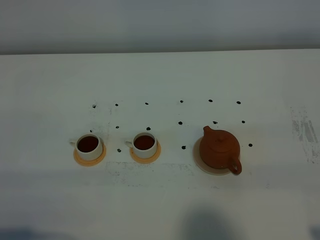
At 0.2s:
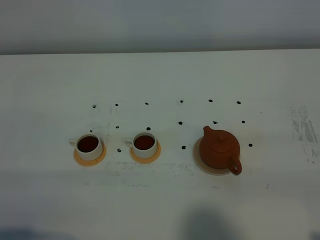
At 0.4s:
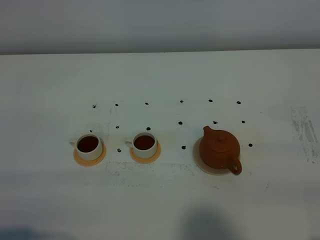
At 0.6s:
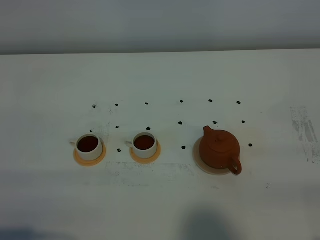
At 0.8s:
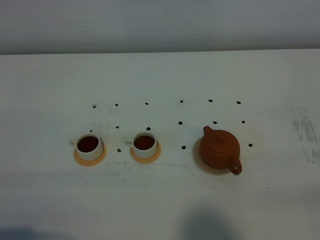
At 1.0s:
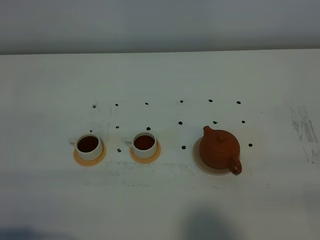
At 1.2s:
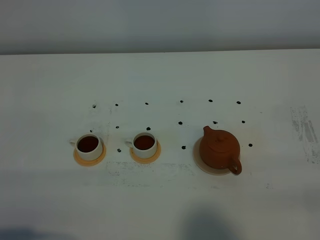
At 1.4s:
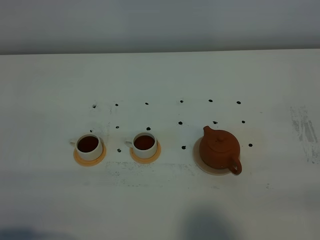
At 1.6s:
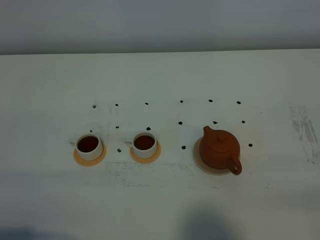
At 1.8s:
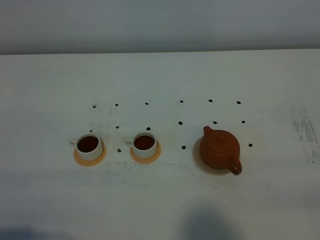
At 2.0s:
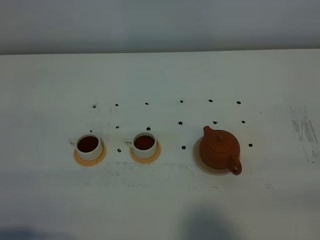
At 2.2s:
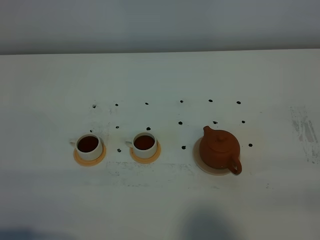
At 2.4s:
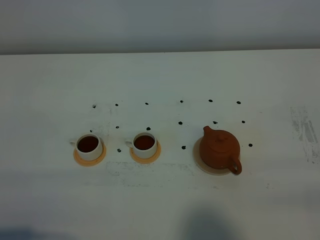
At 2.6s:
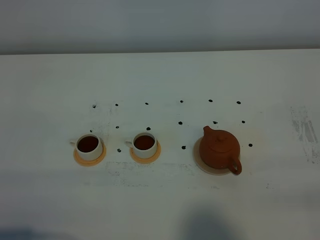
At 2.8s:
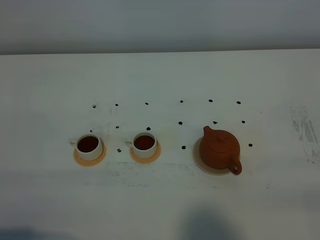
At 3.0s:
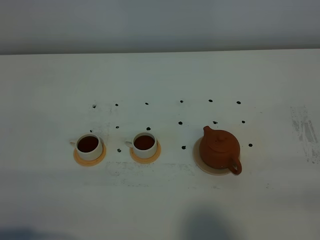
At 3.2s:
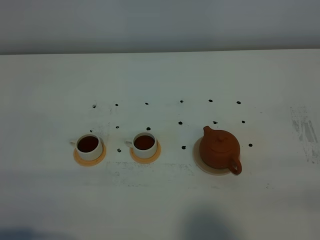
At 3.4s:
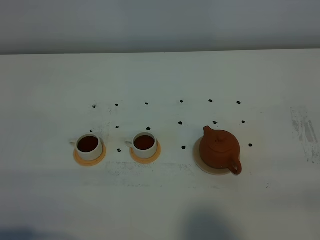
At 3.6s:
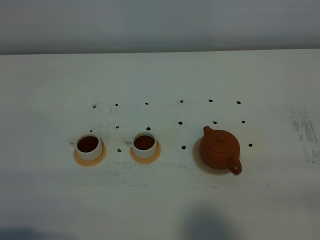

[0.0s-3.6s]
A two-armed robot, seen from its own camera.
Task of the whole recording: grasp the brown teapot and pour the tea into the two white teacups one by one, put the brown teapot back in its original place.
1.8s to 3.6s: The two grippers keep their place.

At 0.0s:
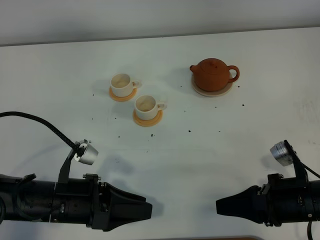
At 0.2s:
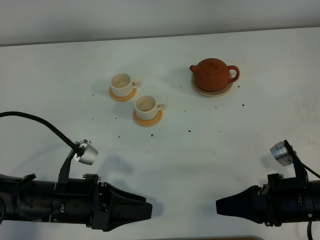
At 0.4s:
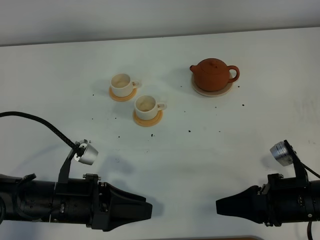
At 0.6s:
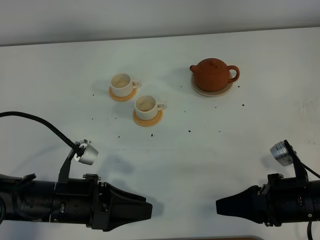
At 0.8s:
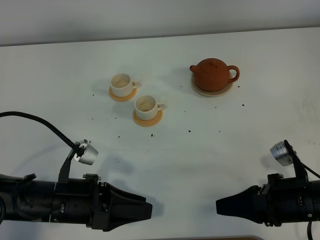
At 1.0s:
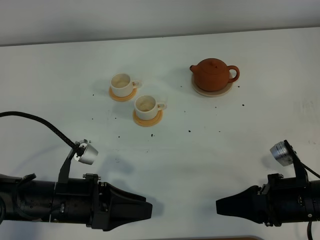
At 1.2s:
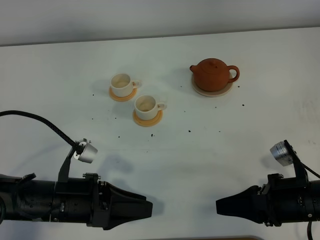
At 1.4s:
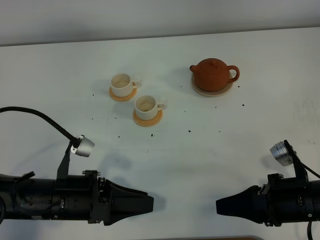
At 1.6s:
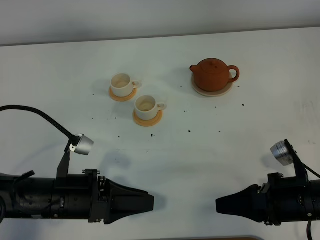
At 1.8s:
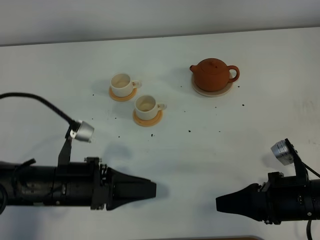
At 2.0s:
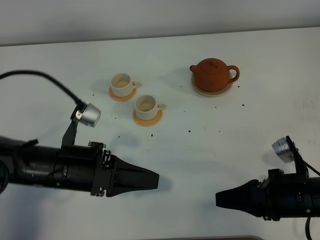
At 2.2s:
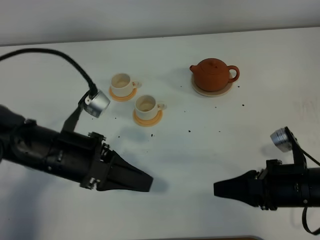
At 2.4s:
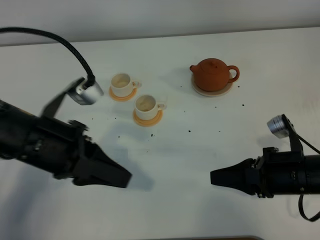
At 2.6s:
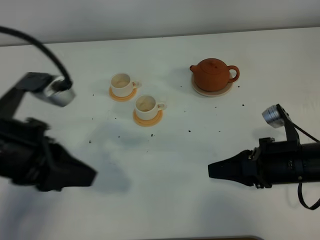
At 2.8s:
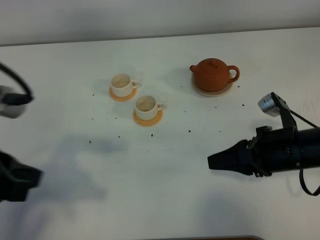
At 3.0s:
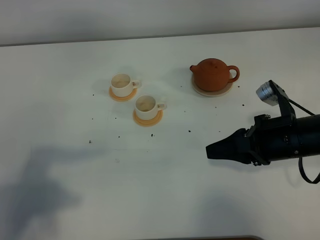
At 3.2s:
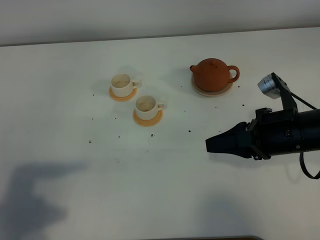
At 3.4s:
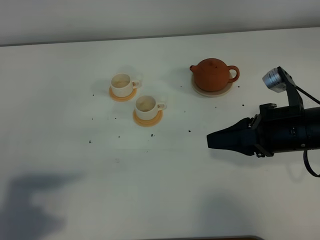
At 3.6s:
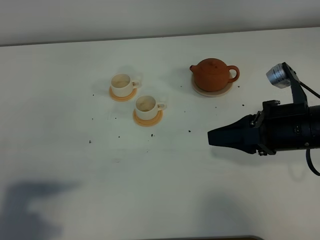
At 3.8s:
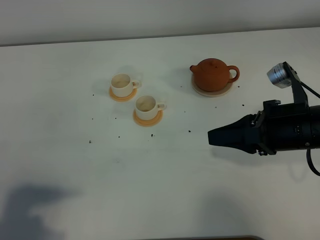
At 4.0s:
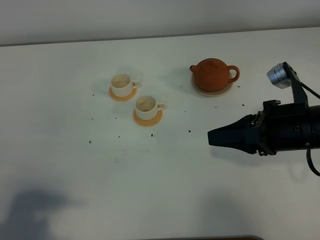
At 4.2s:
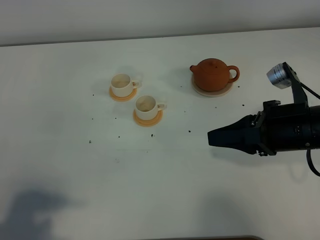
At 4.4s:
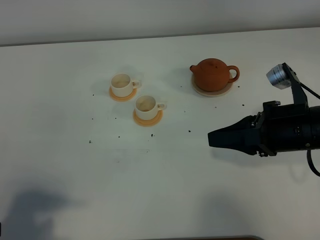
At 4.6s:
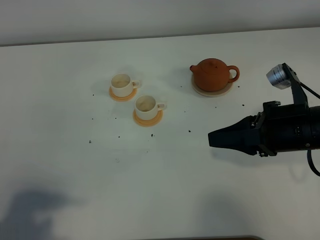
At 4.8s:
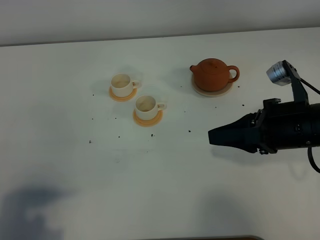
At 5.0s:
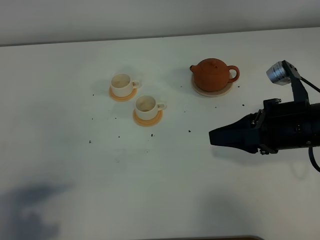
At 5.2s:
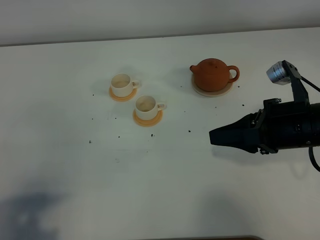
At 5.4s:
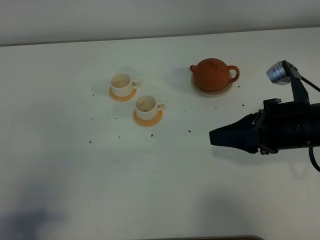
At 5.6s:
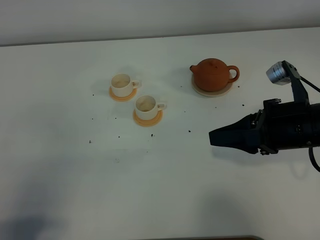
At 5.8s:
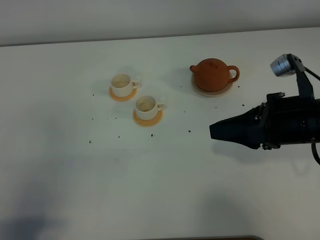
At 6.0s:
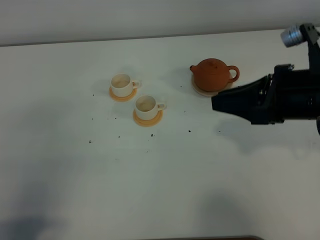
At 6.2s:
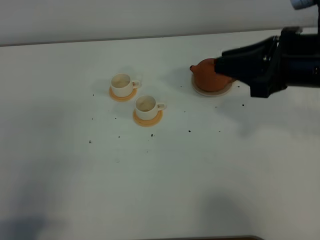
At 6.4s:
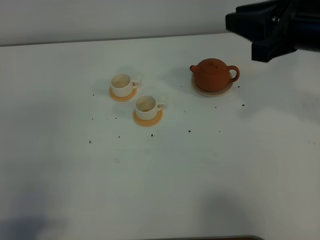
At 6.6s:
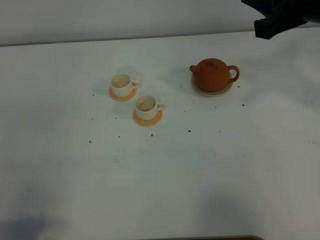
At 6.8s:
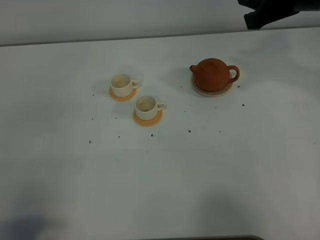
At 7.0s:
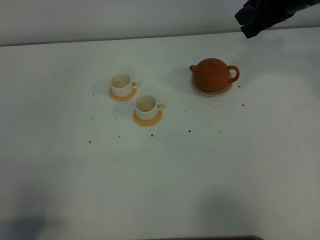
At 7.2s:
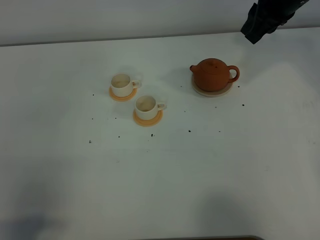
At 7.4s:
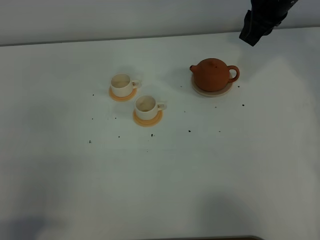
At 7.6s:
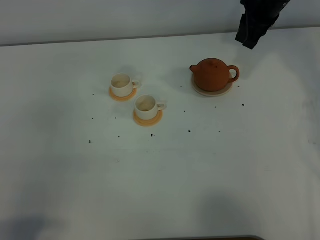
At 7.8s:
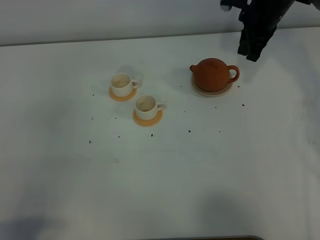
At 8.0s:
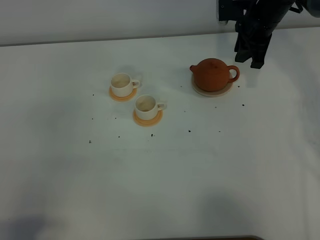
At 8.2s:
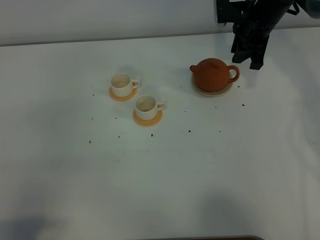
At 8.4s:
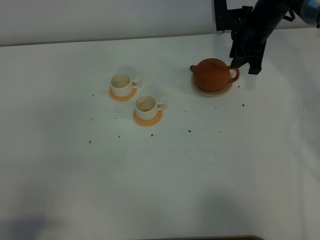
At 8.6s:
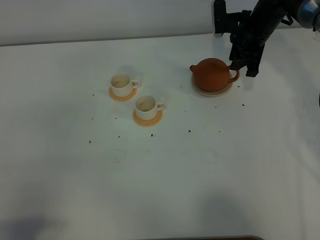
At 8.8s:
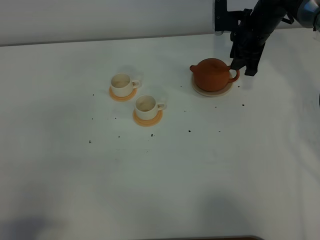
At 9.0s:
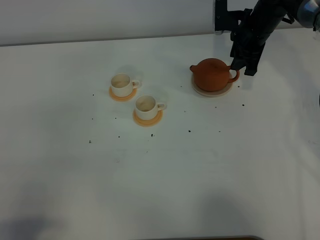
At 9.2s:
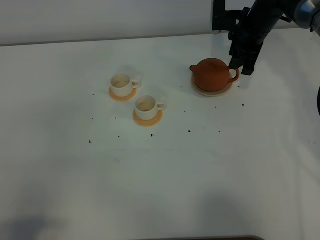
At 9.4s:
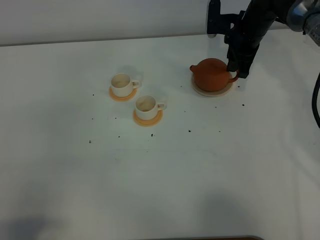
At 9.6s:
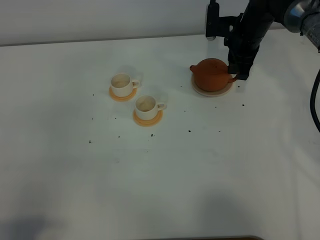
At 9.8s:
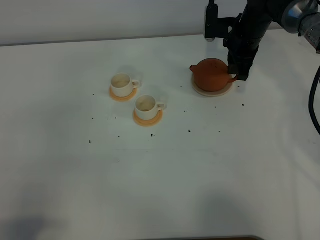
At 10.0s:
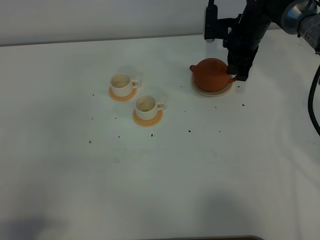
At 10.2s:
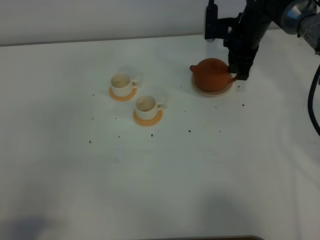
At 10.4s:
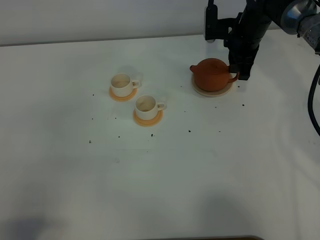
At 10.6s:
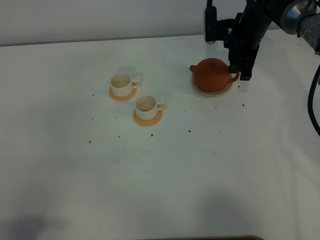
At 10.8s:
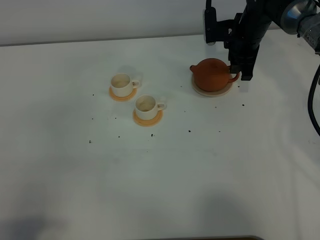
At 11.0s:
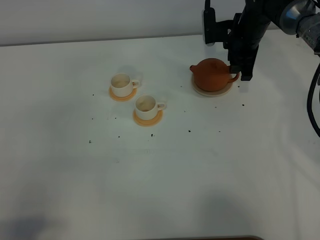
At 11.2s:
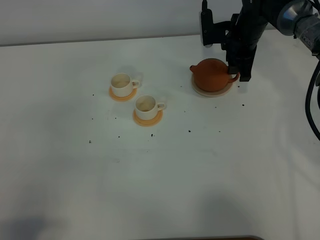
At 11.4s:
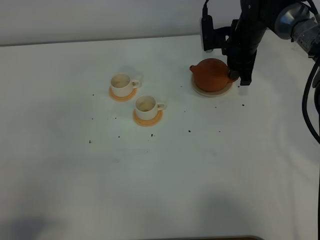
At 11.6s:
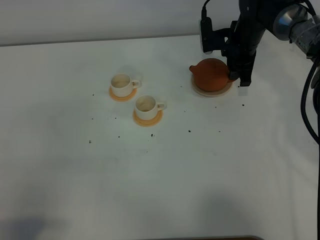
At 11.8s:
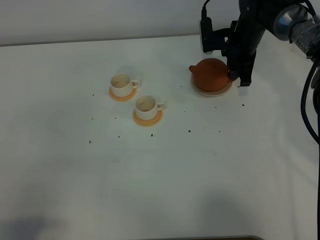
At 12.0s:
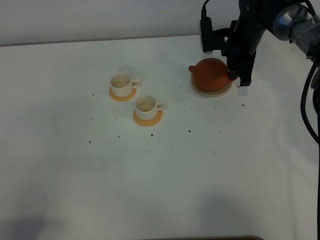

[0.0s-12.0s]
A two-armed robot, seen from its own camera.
Task of the whole recording: grasp the brown teapot and pour the tea into the two white teacups one by one, put the brown teapot back in its original place.
0.0s to 1.6s: The grippers stay close to where they were, moving slightly.
1.6s to 3.0s: The right gripper moves forward and upward, some 10 cm, while the left gripper is displaced upward and to the left by roughly 20 cm, and closes its fingers.
3.0s to 4.4s: The left gripper is displaced downward and backward by roughly 10 cm, and opens its fingers.
4.4s to 6.0s: The right gripper shifts roughly 5 cm upward.
6.0s to 7.6s: The right gripper is displaced forward by approximately 25 cm.
7.6s to 9.0s: The right gripper goes approximately 10 cm downward.
9.0s to 12.0s: The grippers move only a little.

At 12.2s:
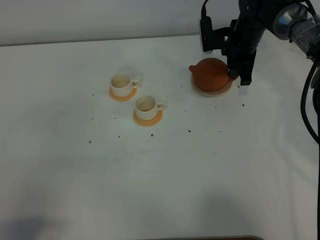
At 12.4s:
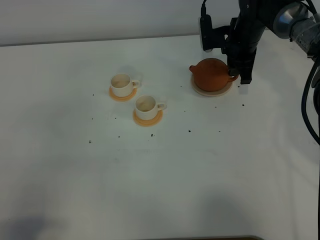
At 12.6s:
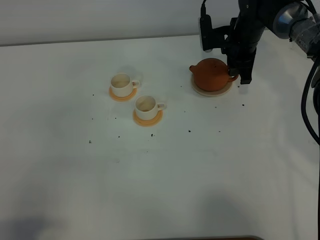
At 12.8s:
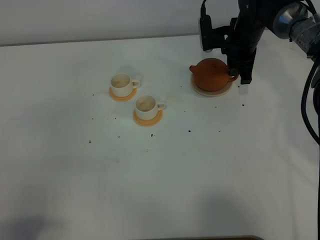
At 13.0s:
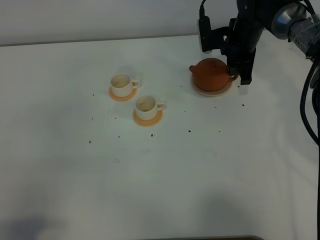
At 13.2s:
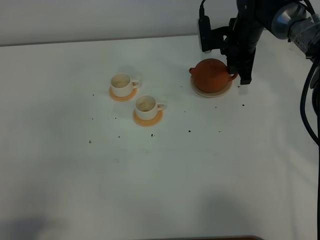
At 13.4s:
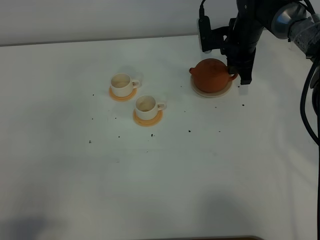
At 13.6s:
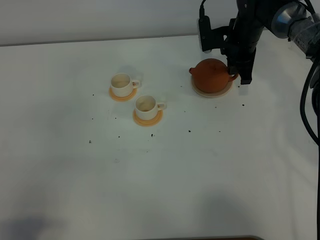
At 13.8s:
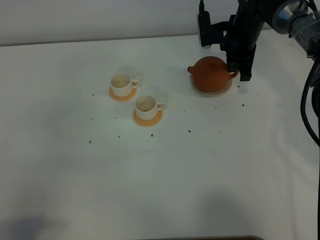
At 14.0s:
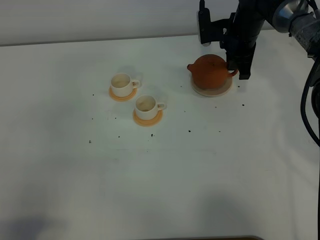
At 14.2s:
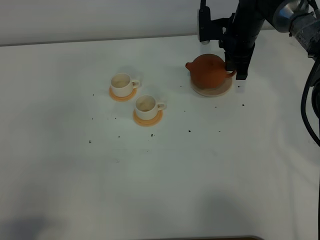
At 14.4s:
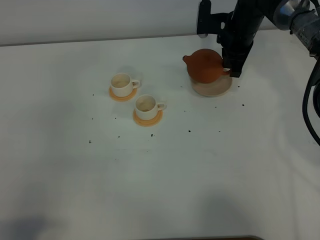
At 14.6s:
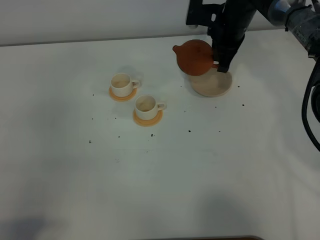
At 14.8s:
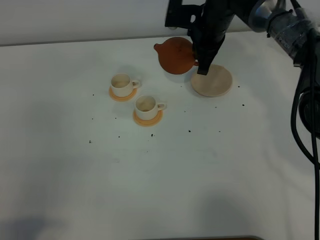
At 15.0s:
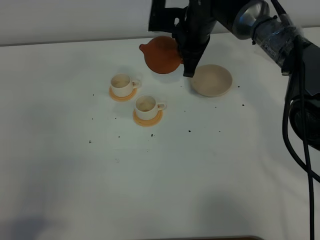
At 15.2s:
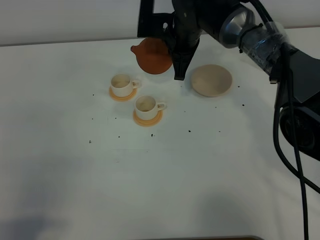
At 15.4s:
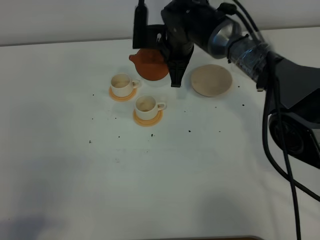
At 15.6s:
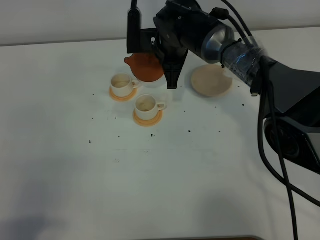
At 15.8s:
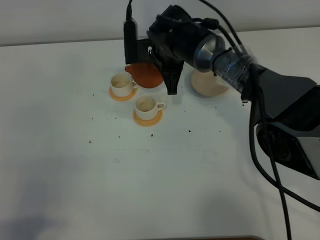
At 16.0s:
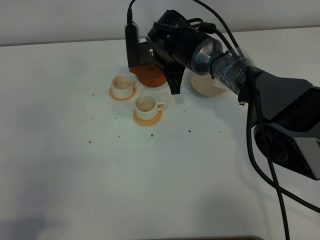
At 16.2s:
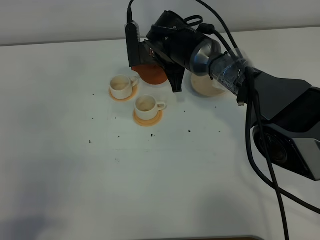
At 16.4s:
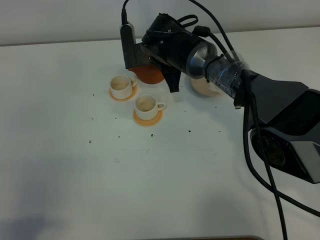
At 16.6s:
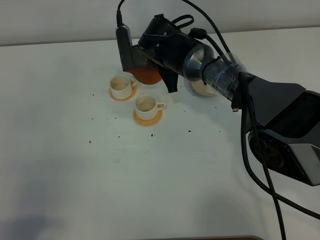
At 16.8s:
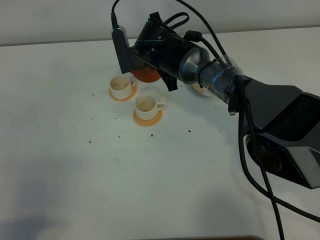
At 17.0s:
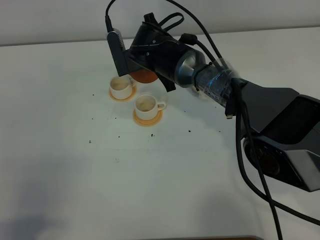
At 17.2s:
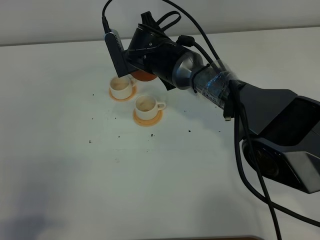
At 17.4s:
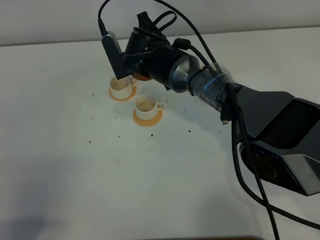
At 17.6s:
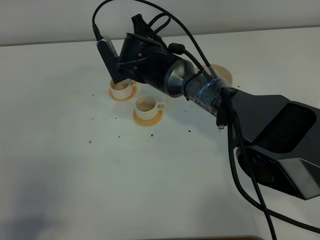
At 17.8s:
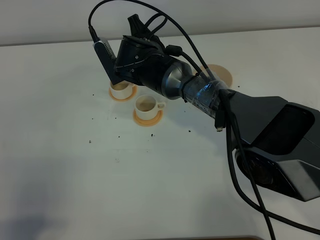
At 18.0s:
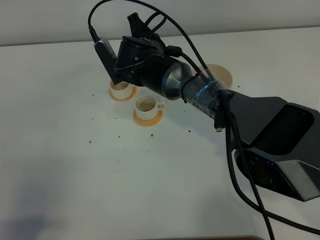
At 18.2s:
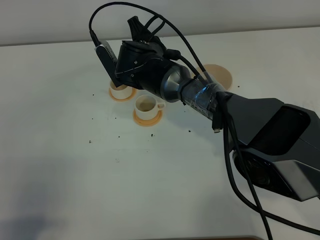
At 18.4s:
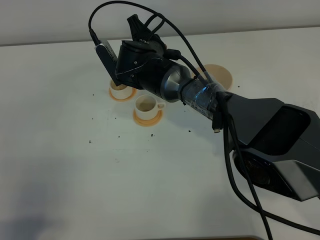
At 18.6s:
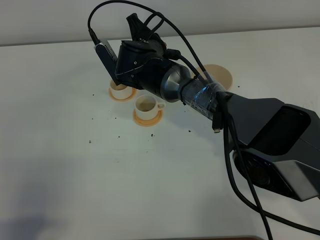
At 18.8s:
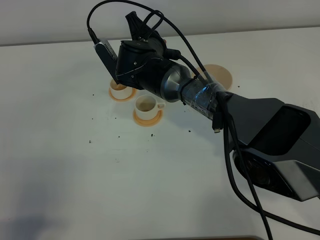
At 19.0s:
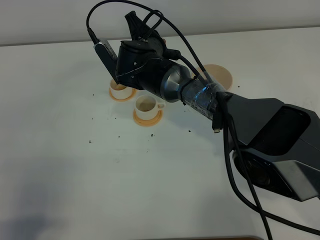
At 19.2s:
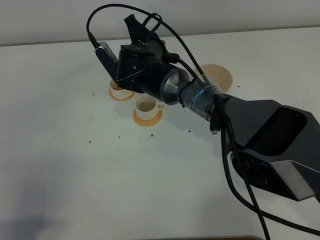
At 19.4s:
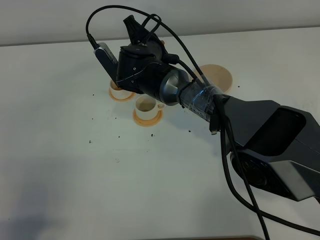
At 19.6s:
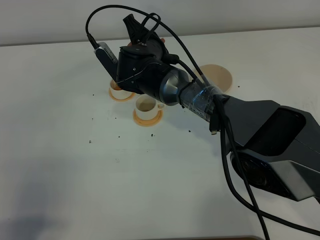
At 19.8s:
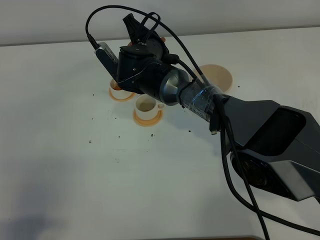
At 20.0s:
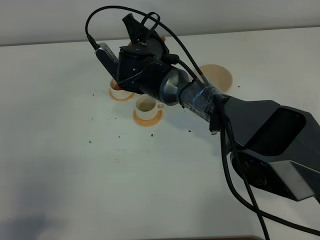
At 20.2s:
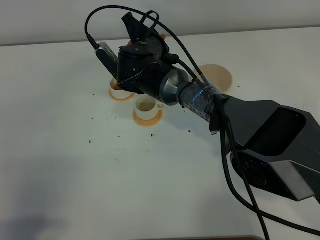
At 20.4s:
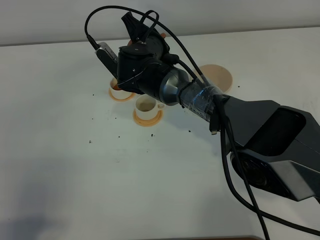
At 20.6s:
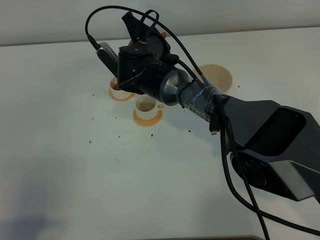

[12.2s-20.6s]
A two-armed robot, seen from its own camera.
Task of the whole recording: grasp the brown teapot and pour the tea into the two white teacups one by one, put the brown teapot back in its original place.
Step, 12.2s to 14.4s: Pick up the teapot with the right gripper.
12.2s to 13.6s: The right gripper closes.
13.6s to 15.0s: The right gripper moves to the left, upward and backward, approximately 15 cm.
15.0s to 16.4s: The right gripper travels to the left by some 5 cm.
17.8s to 20.6s: The grippers stay close to where they were, moving slightly.
